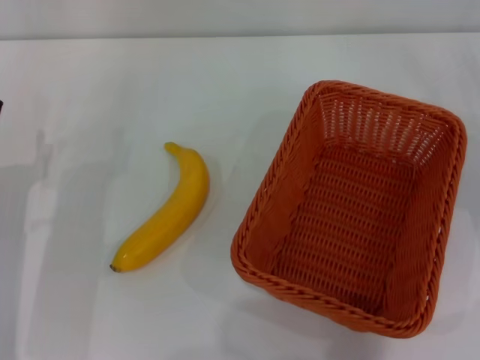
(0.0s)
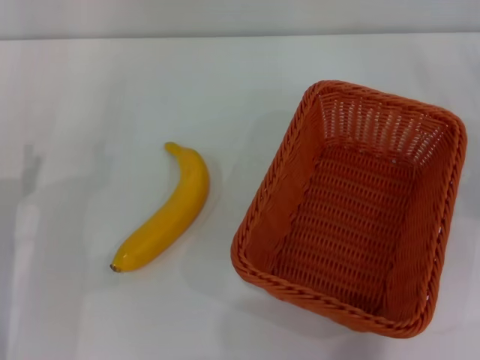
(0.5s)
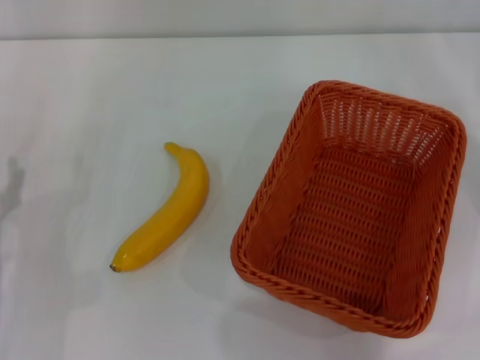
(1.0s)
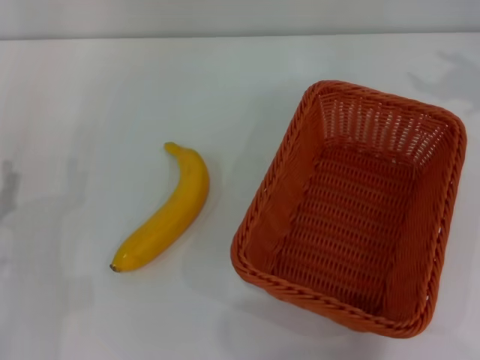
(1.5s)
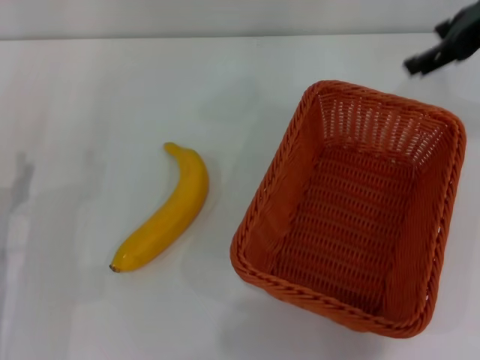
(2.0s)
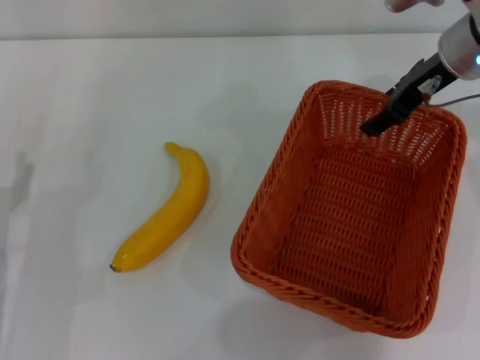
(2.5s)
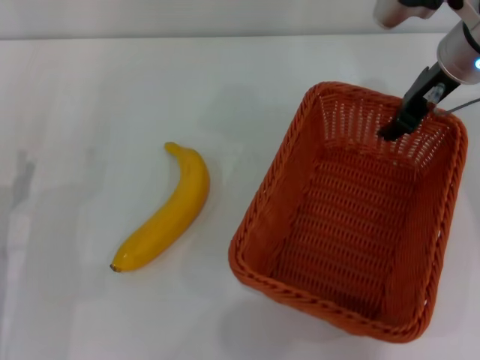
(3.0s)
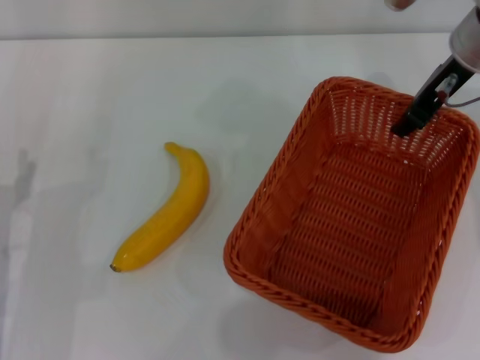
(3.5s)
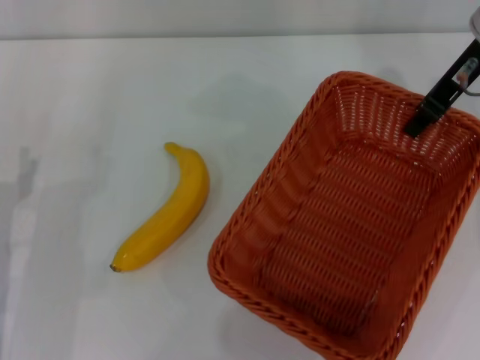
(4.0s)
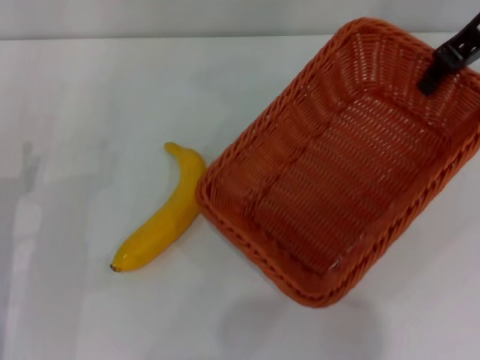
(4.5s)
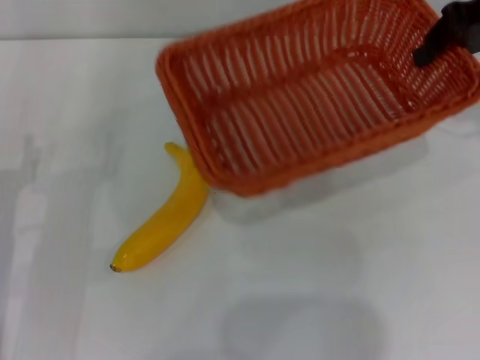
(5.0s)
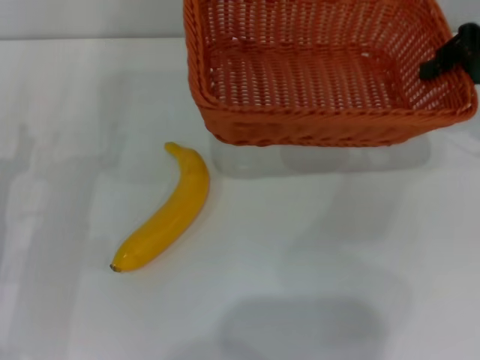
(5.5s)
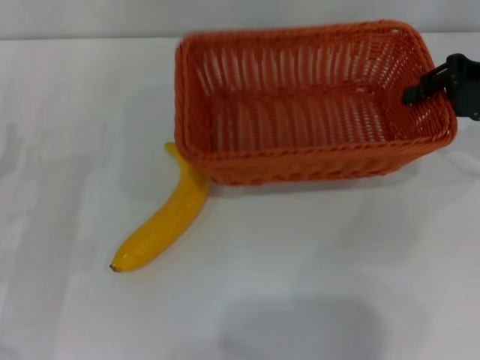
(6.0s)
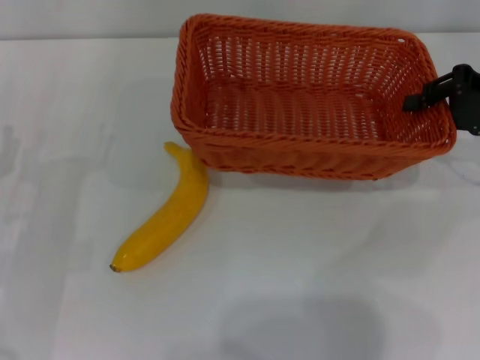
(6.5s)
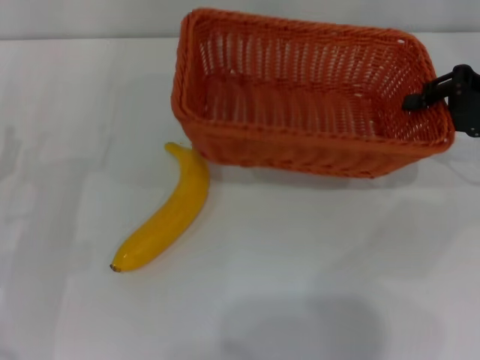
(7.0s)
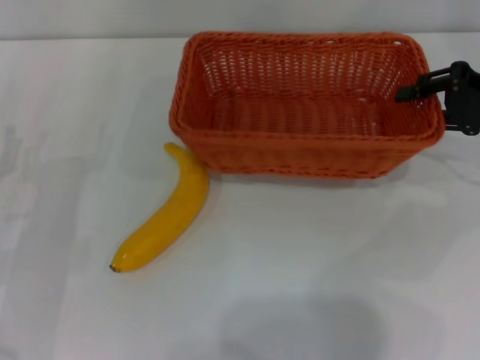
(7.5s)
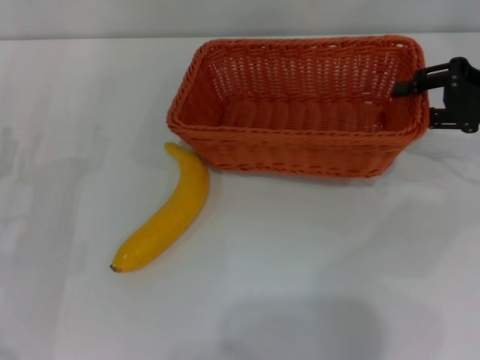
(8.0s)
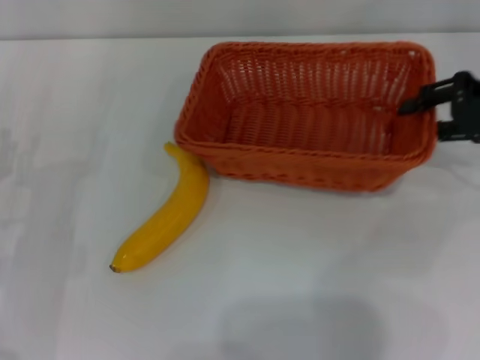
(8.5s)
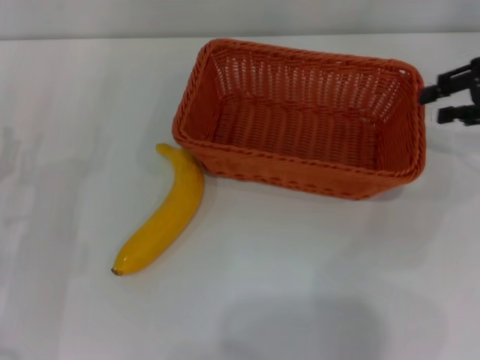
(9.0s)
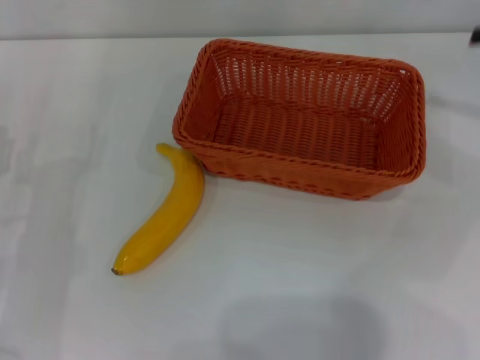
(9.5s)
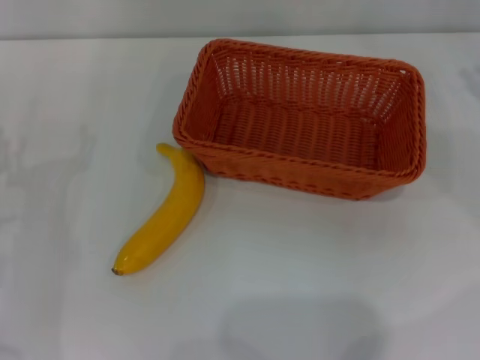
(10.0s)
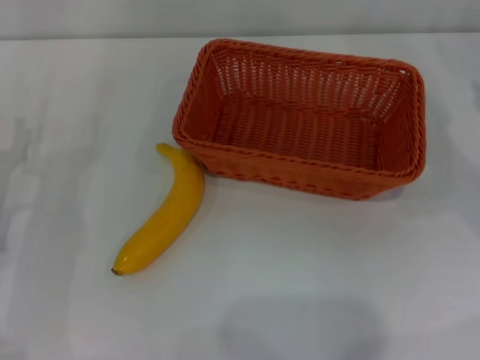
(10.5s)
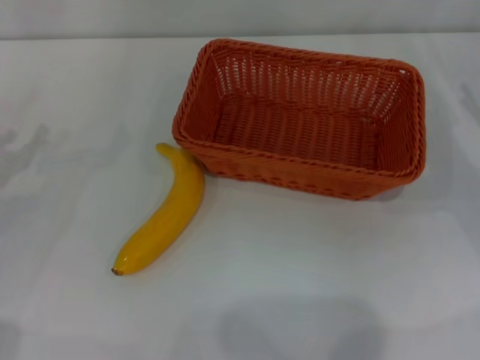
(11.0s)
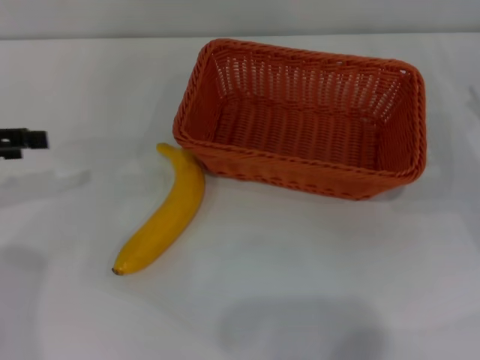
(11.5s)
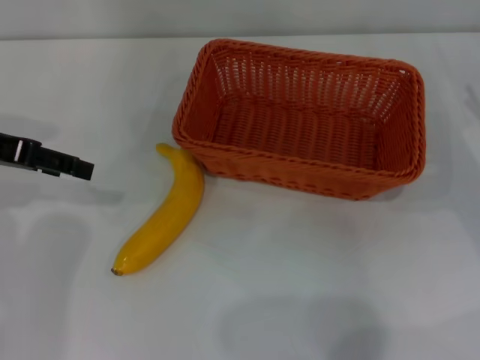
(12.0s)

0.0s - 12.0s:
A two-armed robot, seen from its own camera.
Step, 0.0s - 3.5s: Pick up the light basket with the right gripper.
Step, 4.0s - 8.5s: Place the light basket in the center of view with the right gripper.
0.0s - 2.0s: The right gripper goes some 20 cm upward and to the left.
2.0s - 4.0s: The right gripper closes up.
4.0s - 6.0s: The right gripper is displaced to the right and downward by some 10 cm.
6.0s - 8.0s: The right gripper opens.
8.0s - 10.0s: The right gripper goes some 5 cm to the right.
10.0s - 12.0s: The left gripper travels upward and forward by some 15 cm.

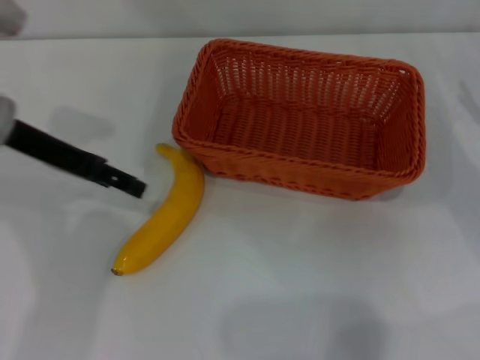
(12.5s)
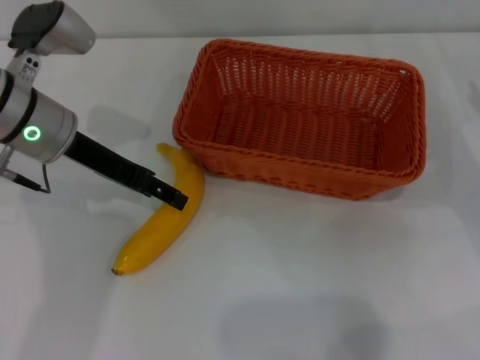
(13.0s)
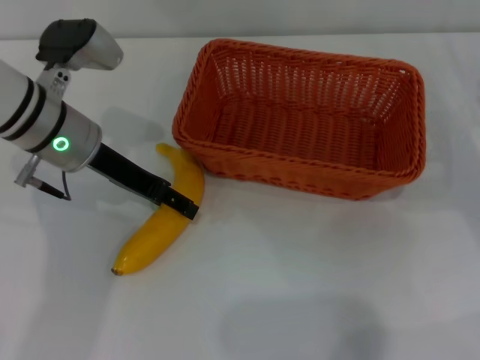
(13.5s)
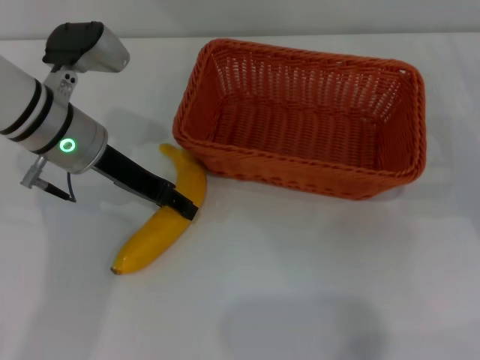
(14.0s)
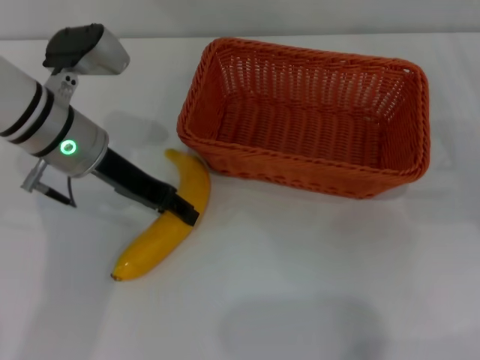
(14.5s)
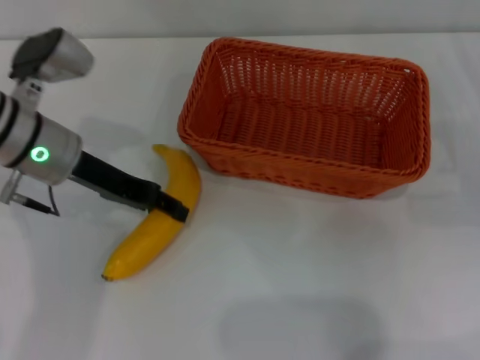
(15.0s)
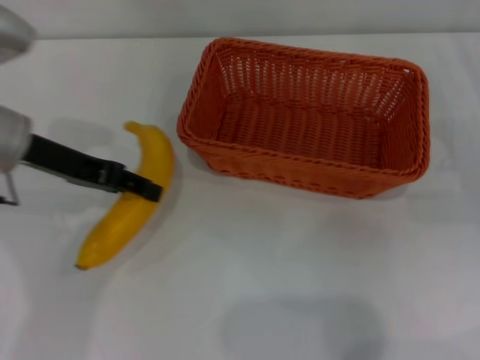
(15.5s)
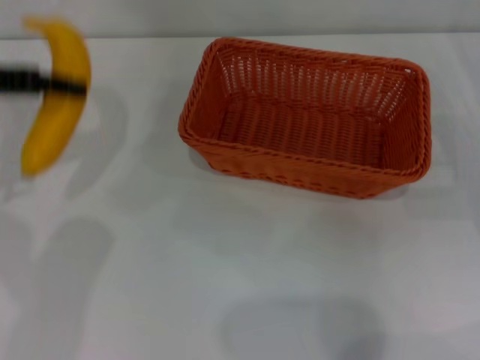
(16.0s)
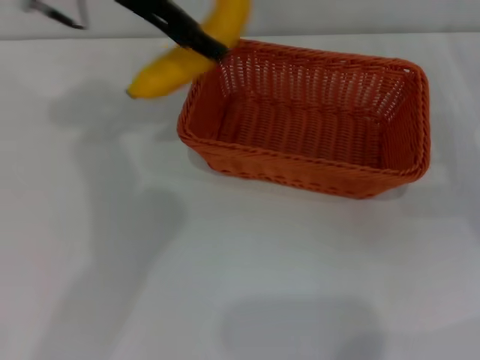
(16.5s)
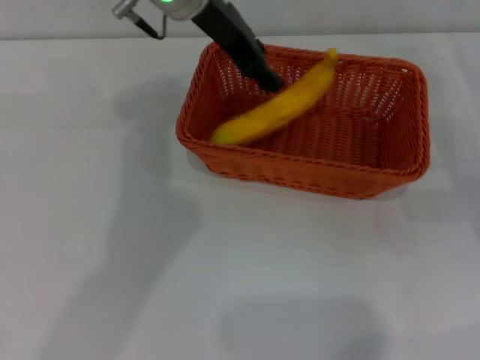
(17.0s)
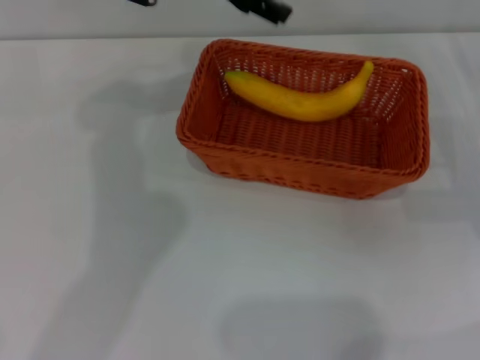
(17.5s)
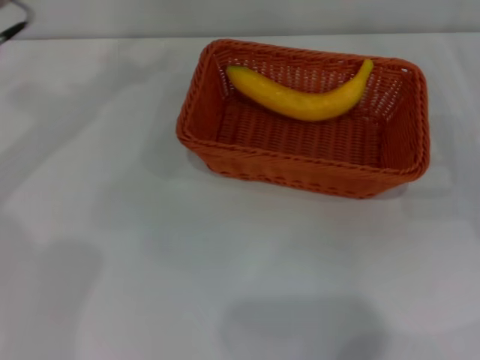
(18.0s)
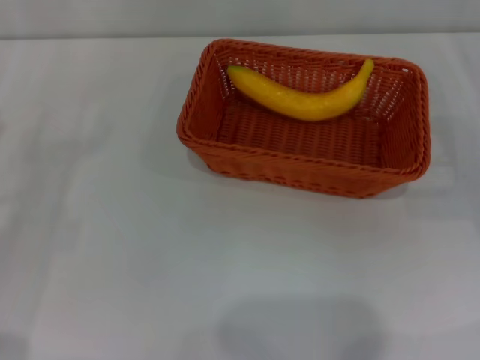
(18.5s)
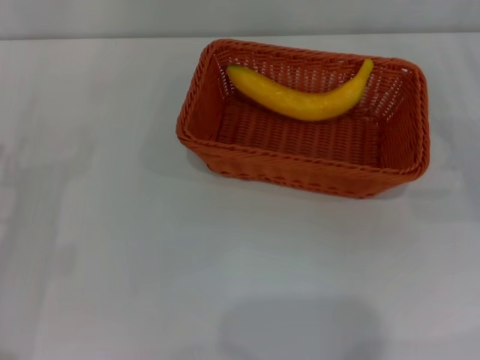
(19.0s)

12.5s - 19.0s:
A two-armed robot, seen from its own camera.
Step, 12.5s - 15.5s: Pick up the banana with the left gripper.
Step, 16.0s - 17.0s: Place the banana into the light basket with the left gripper.
12.5s - 14.5s: The left gripper moves to the right, approximately 5 cm, and closes its fingers.
14.5s - 17.0s: The left gripper heads to the right, upward and forward, covering roughly 20 cm.
17.0s - 19.0s: The left gripper is displaced to the left, backward and downward by about 40 cm, and opens.

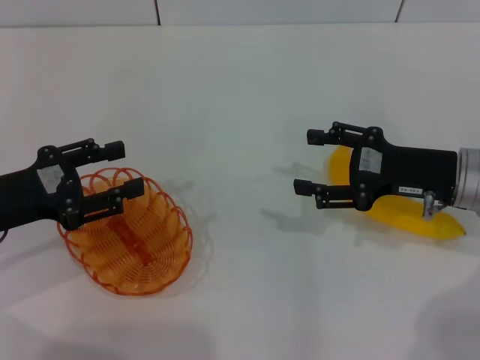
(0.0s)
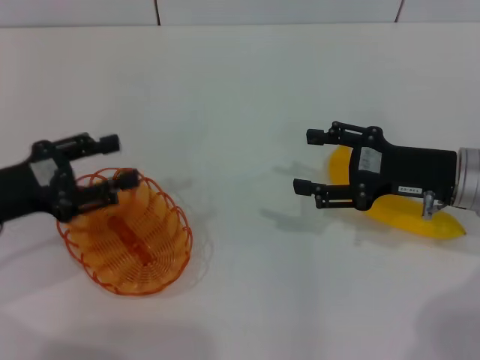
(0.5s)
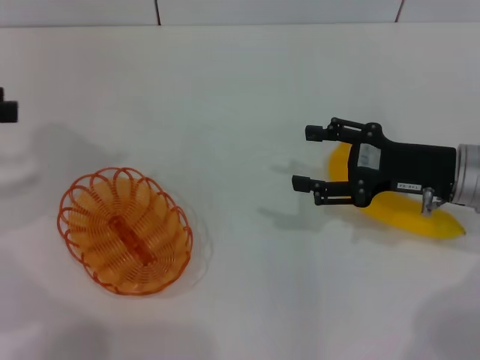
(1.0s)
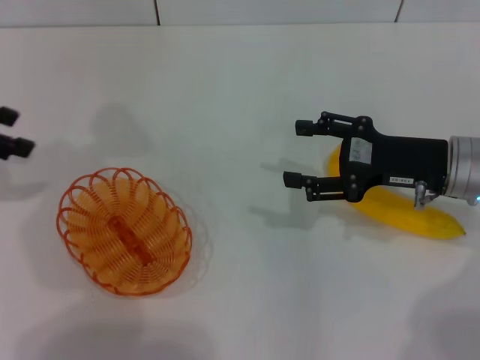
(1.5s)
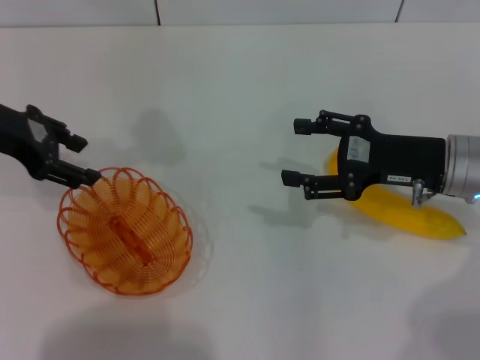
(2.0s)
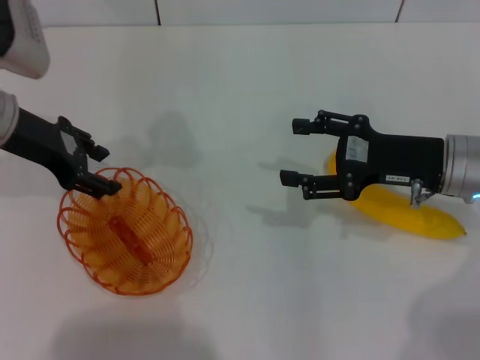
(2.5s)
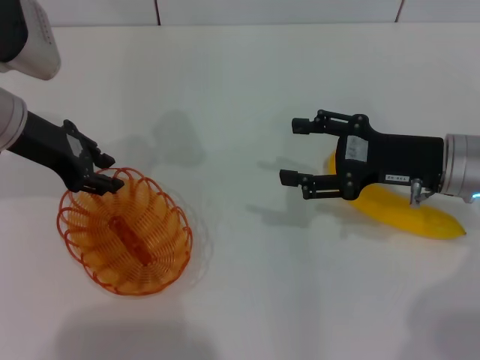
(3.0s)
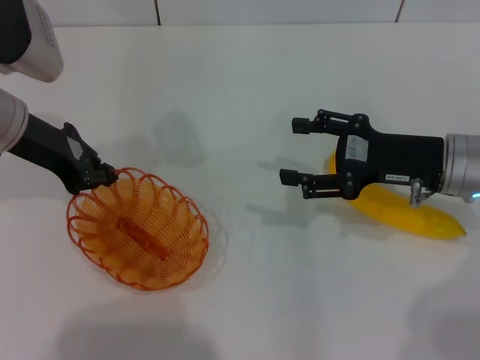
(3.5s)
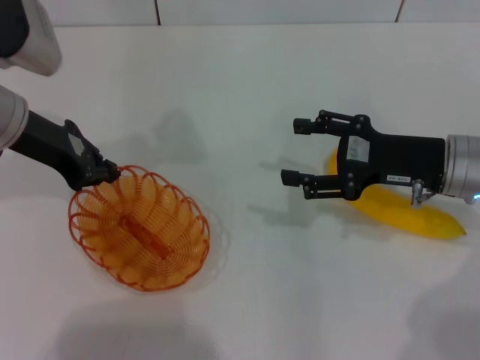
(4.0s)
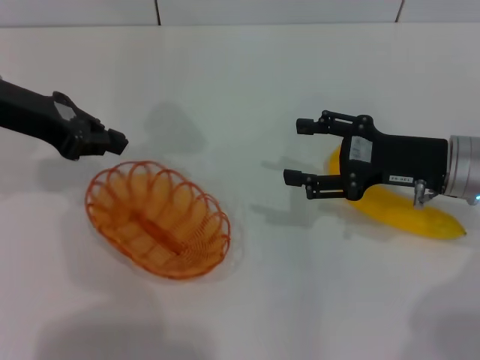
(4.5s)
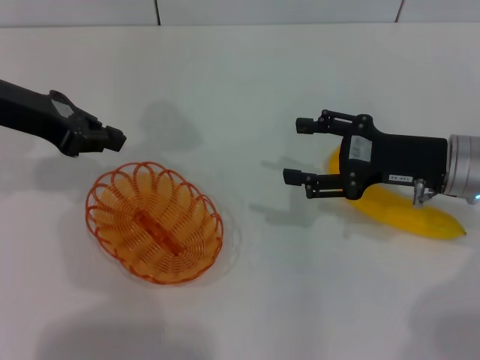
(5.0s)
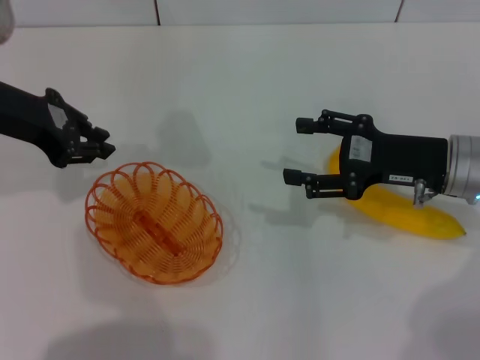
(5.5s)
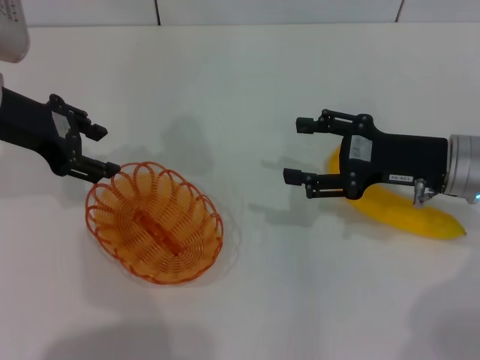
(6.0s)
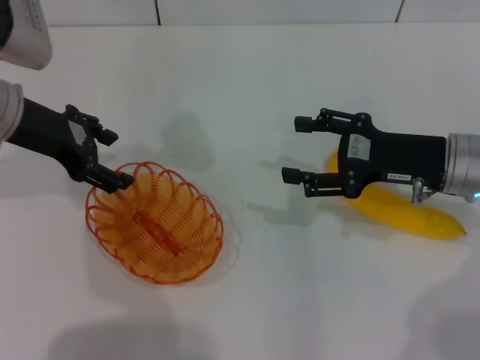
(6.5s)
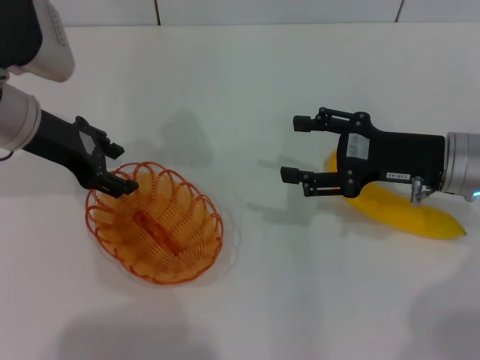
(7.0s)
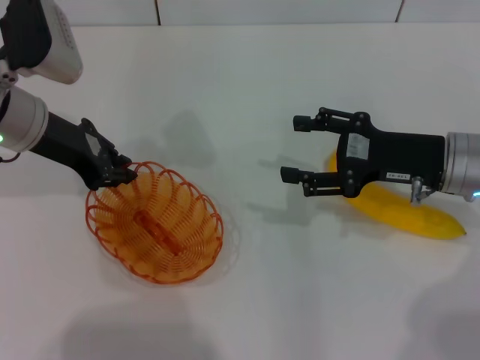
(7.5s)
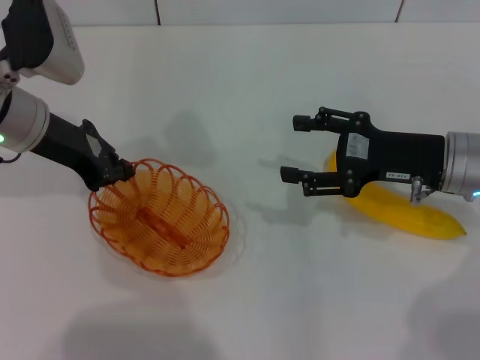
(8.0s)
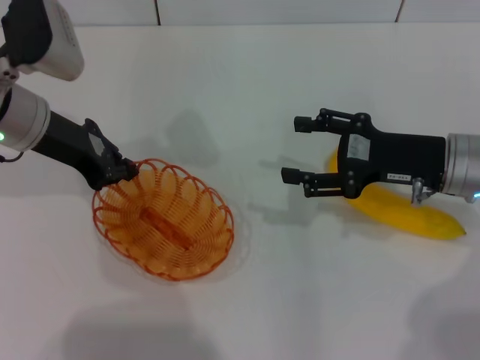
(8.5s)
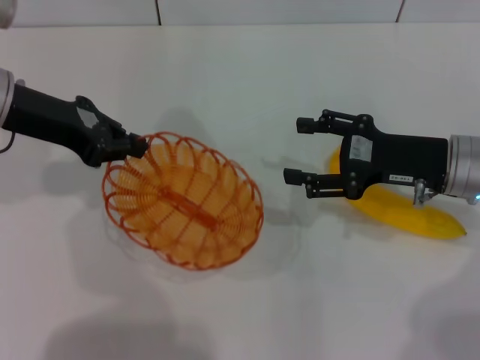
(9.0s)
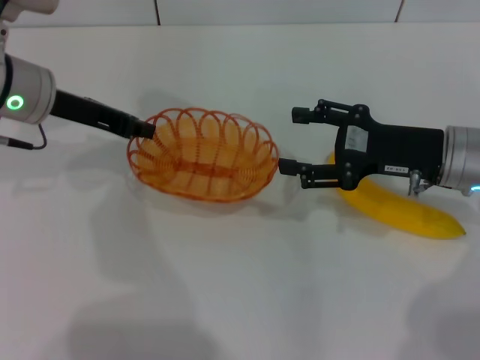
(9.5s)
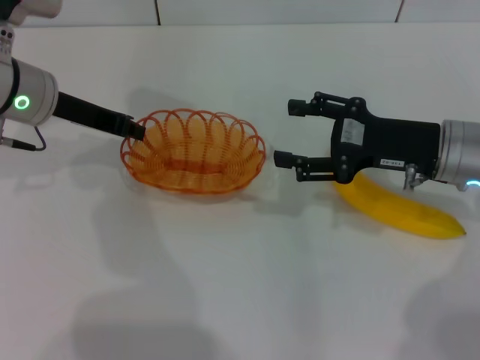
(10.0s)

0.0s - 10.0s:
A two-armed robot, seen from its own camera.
0.0s - 2.0s: The left gripper travels forward and upward by approximately 15 cm.
2.0s - 4.0s: The left gripper closes up.
4.0s - 6.0s: The left gripper opens.
6.0s - 8.0s: The left gripper ends up roughly 5 cm from where it was, and closes.
